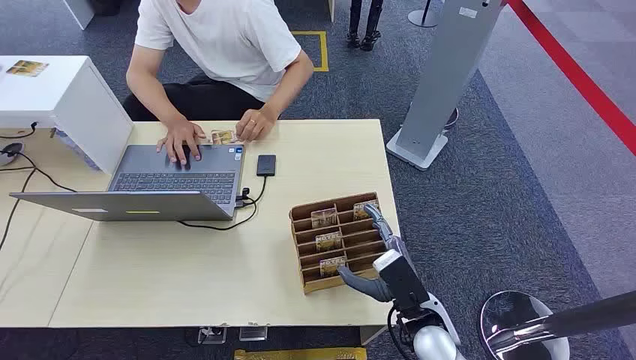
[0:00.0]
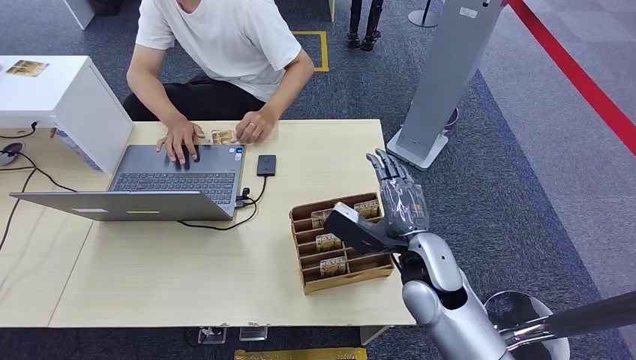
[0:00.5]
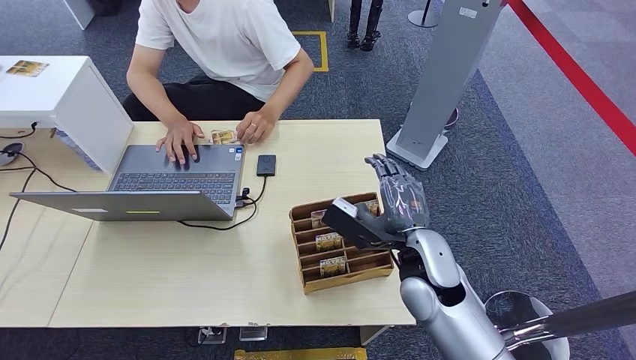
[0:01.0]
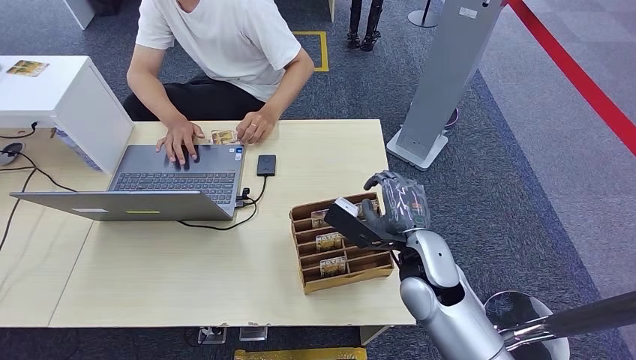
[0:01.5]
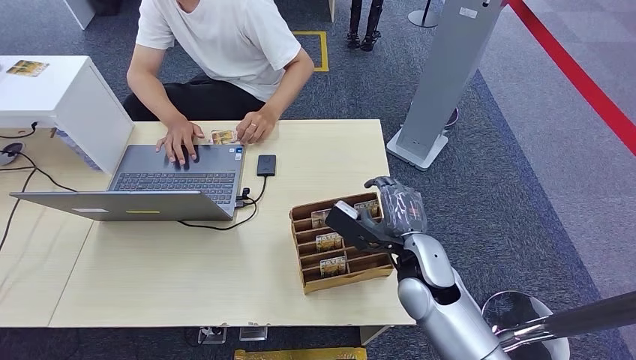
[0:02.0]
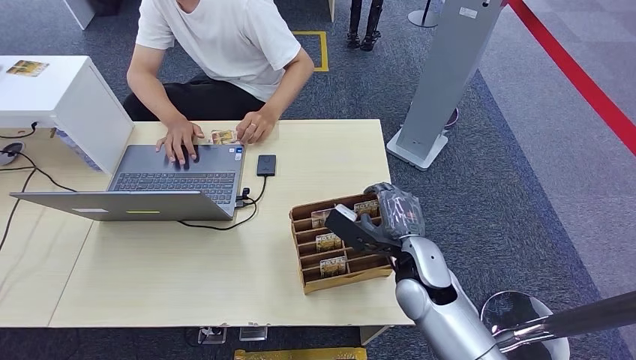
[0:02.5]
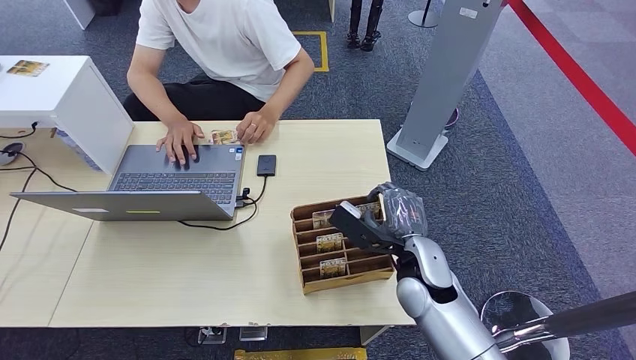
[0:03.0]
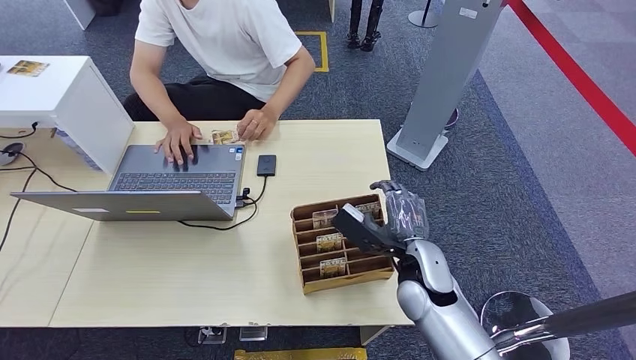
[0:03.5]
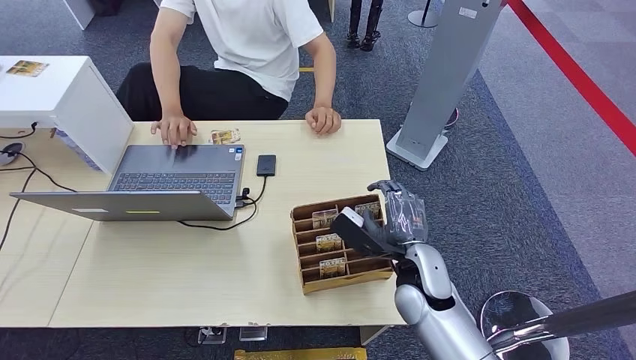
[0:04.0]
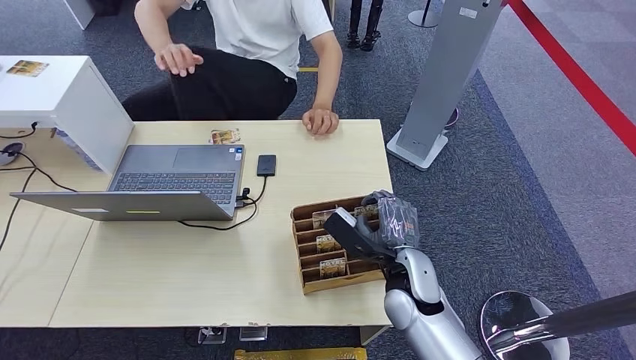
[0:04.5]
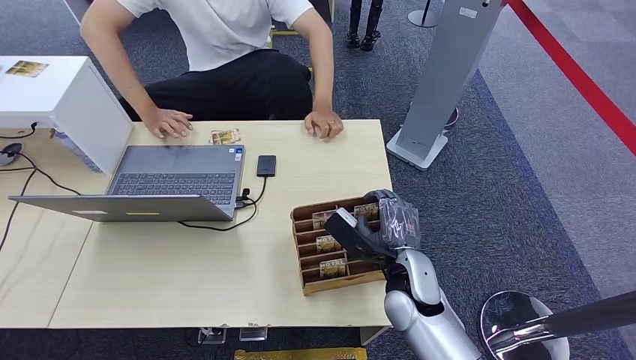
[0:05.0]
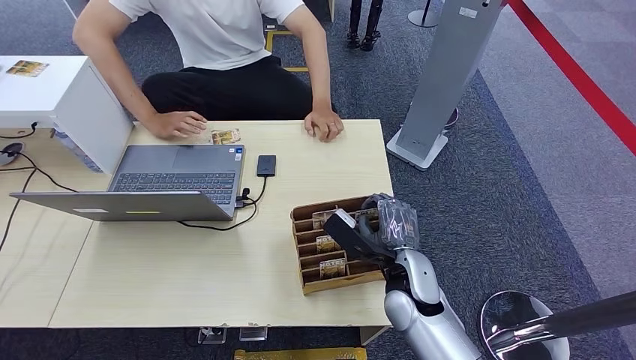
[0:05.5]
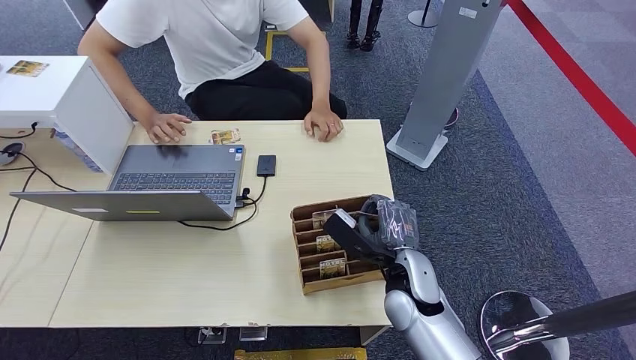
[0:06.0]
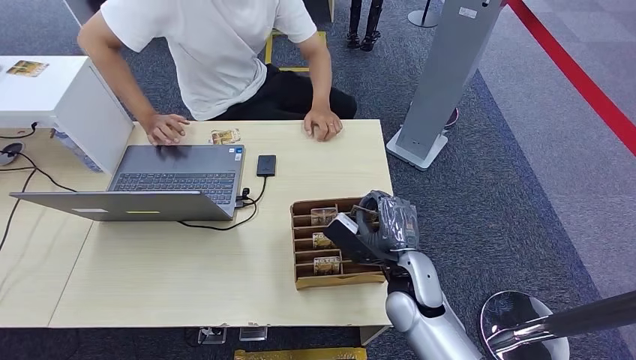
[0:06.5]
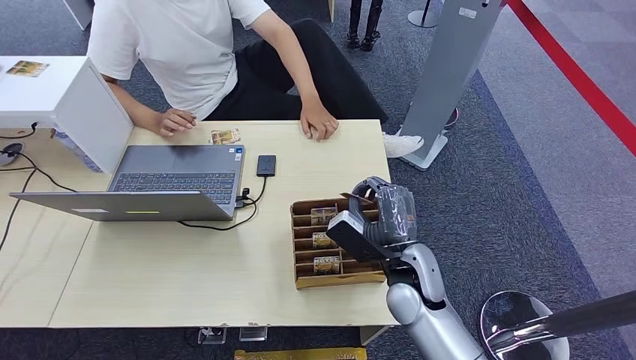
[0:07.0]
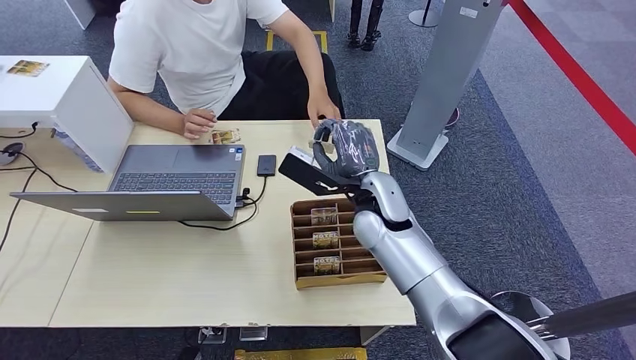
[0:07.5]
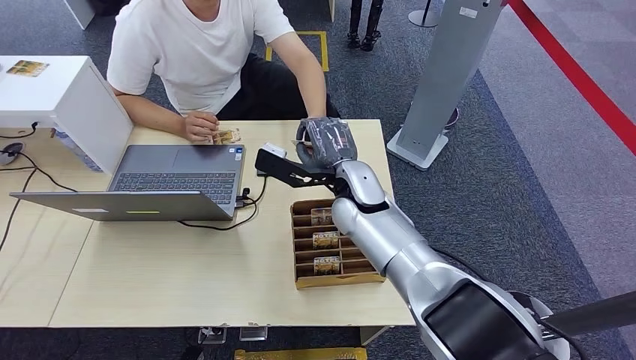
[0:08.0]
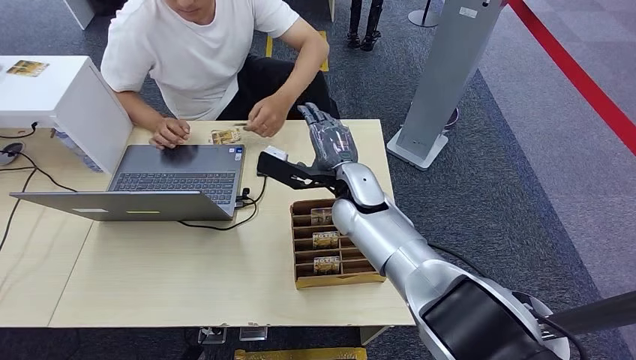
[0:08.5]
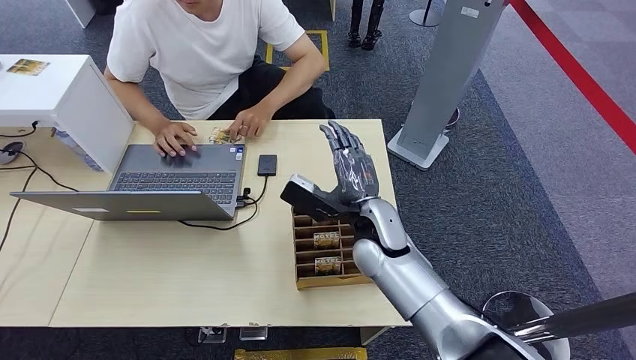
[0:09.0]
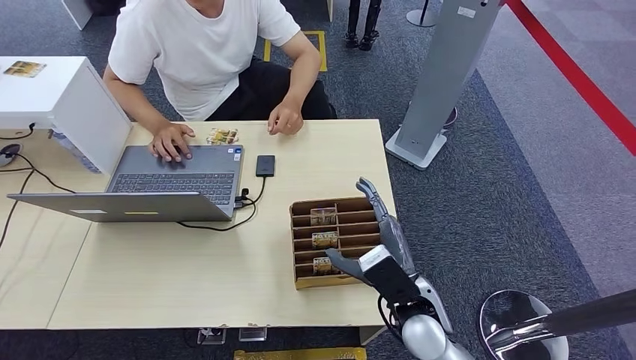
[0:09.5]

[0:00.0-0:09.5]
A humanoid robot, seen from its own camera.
Step, 0:00.0 to 0:06.0: Pick up the room card from the card holder.
Step, 0:07.0 to 0:09.5: Hand the room card to the target.
0:02.0 to 0:04.0: The hands move only a little.
0:04.0 to 0:05.5: Neither hand changes place.
0:05.5 to 0:07.5: The right hand shifts some 15 cm forward, upward and to the left.
0:07.5 to 0:09.5: The right hand travels backward and downward by some 20 cm.
